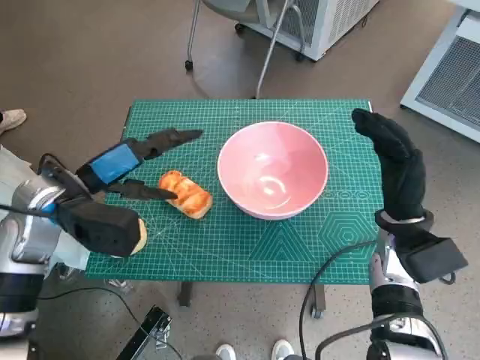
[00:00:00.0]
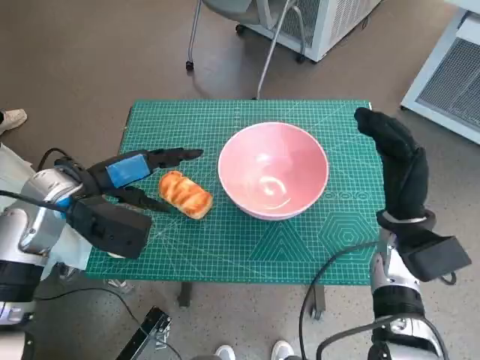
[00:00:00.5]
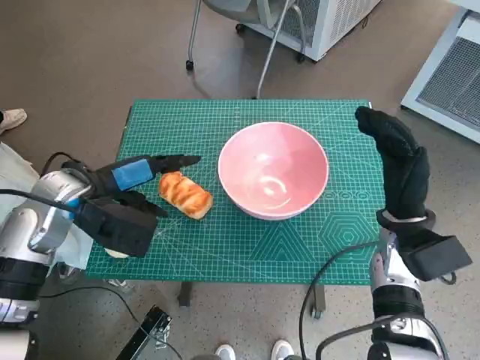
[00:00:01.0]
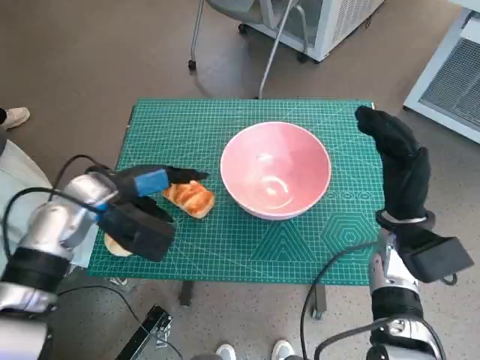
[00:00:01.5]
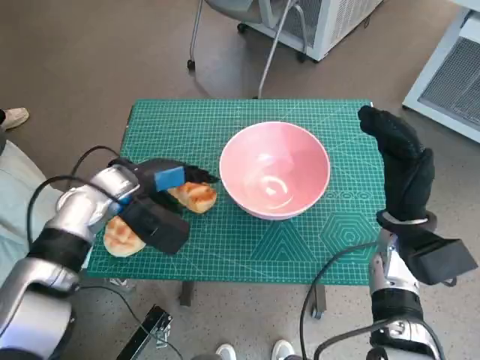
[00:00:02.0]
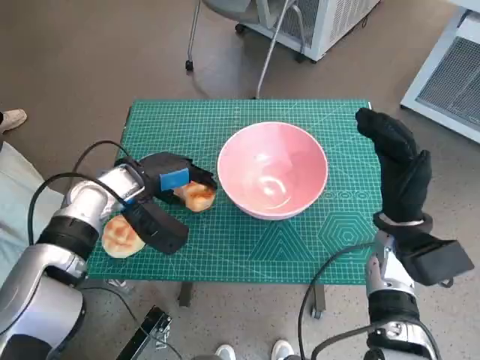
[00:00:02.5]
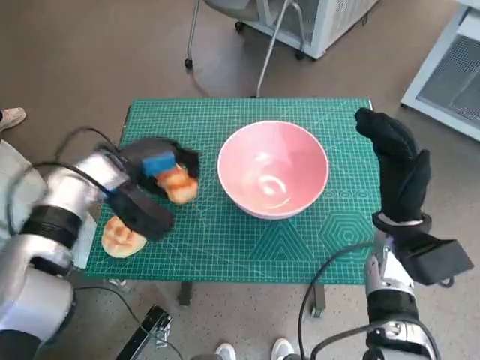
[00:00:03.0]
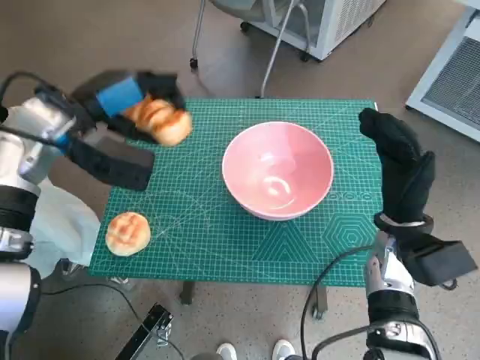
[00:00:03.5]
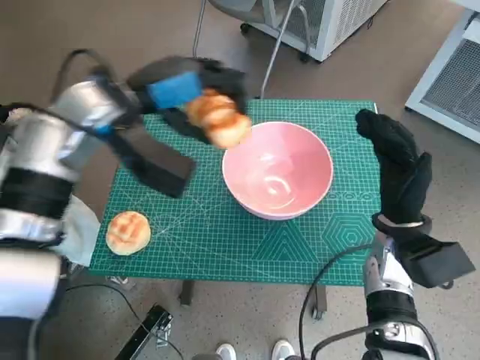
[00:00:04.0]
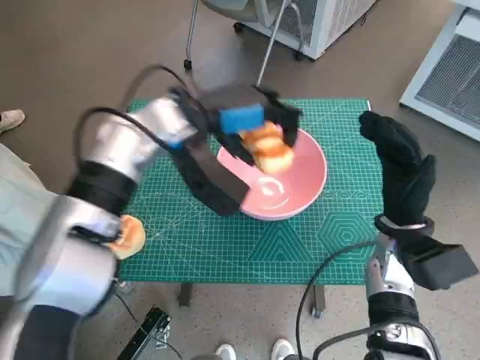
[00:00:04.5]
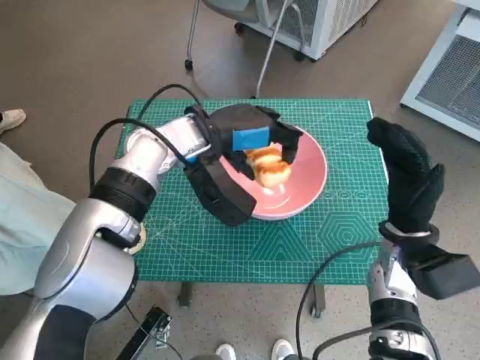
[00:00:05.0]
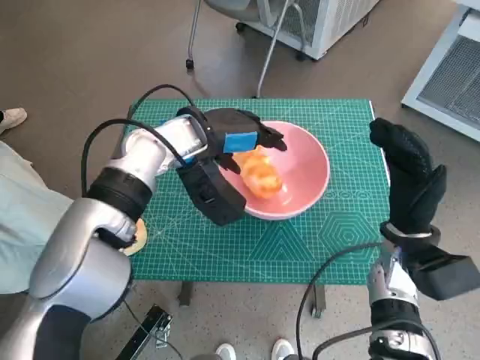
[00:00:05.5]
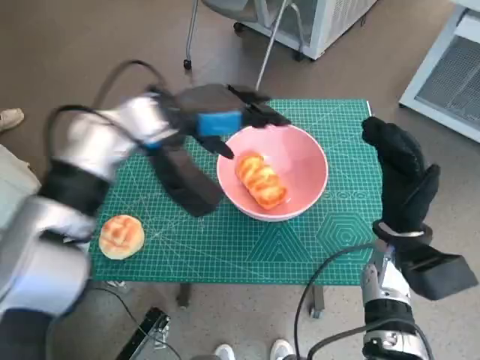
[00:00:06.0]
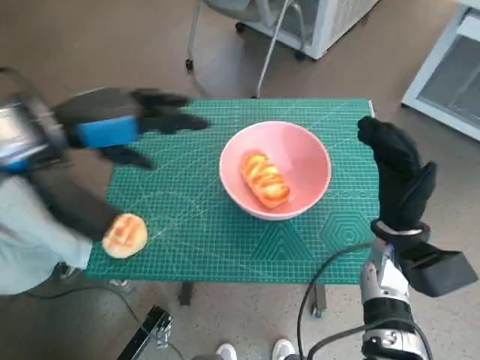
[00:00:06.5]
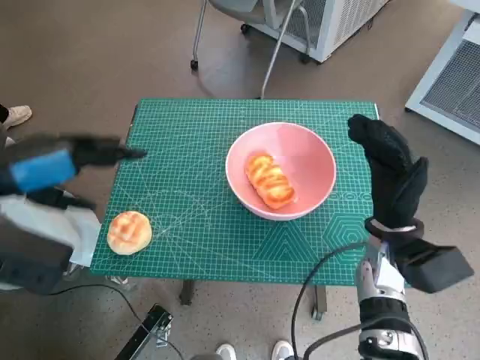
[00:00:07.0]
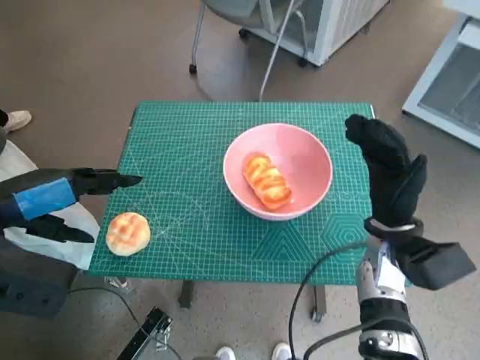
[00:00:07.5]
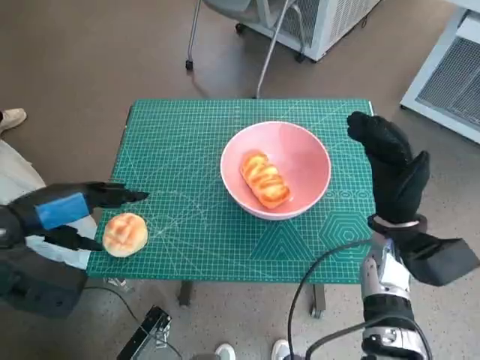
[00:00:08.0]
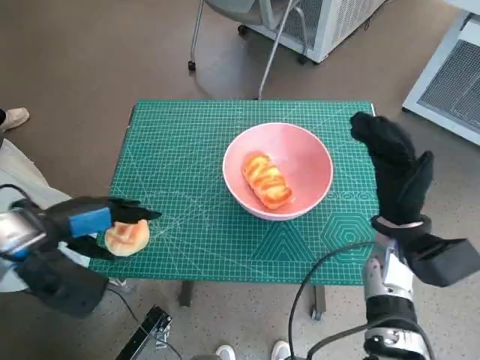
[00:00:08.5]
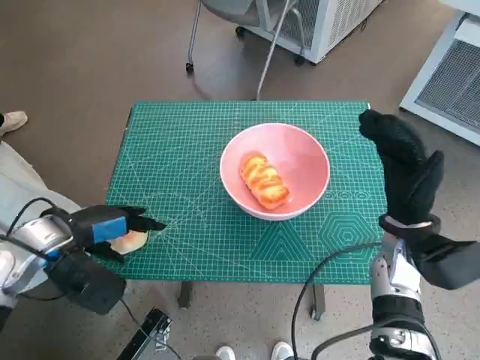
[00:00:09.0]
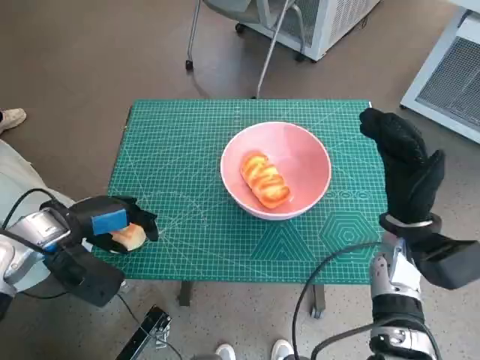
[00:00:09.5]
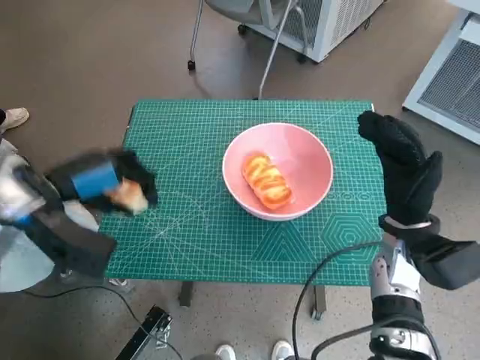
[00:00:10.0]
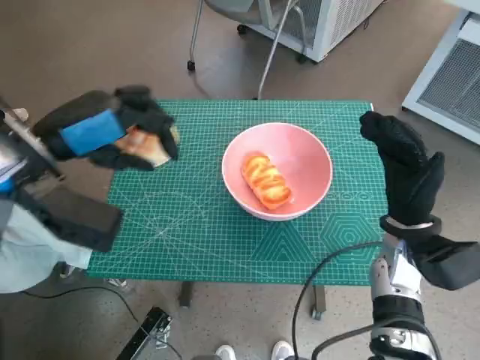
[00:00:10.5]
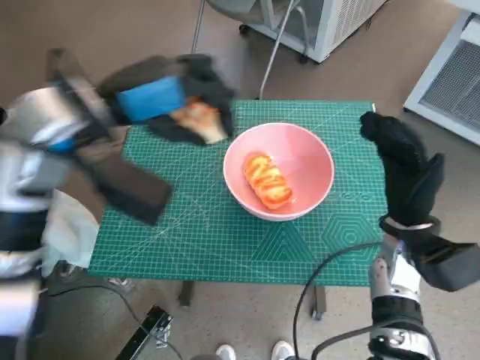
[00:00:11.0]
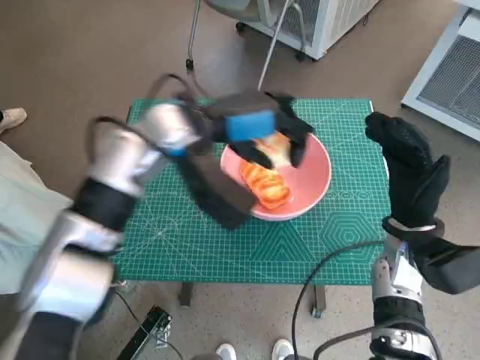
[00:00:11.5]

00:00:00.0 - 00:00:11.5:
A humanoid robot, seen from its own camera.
Task of the whole recording: Push the bowl to the center of the table and put the bread into the bowl.
Step, 00:00:00.0 - 00:00:02.0: Grasp the long bread with left hand.
Step, 00:00:02.5 - 00:00:06.0: Place the long bread in pink bowl with left hand.
Step, 00:00:06.5 - 00:00:09.0: Grasp the round bread with left hand.
00:00:00.0 - 00:00:02.0: The left hand ends up about 10 cm from where it was.
00:00:02.0 - 00:00:04.0: The left hand travels upward by roughly 10 cm.
00:00:04.0 - 00:00:06.0: The left hand shifts roughly 5 cm to the right.
00:00:06.0 - 00:00:07.5: The left hand is displaced to the left and backward by approximately 20 cm.
00:00:07.5 - 00:00:09.5: The left hand heads downward, covering about 15 cm.
00:00:09.5 - 00:00:11.5: The left hand is displaced to the right, upward and forward by approximately 20 cm.

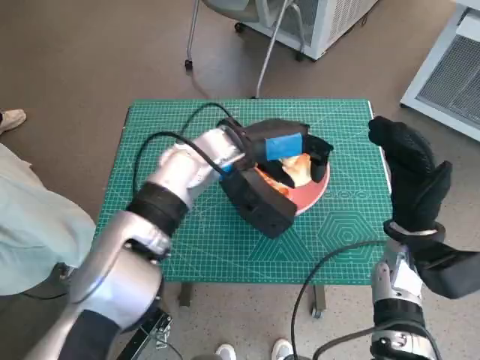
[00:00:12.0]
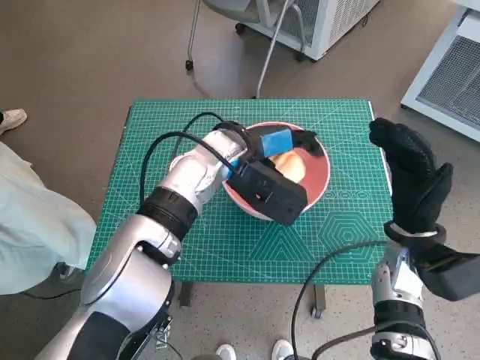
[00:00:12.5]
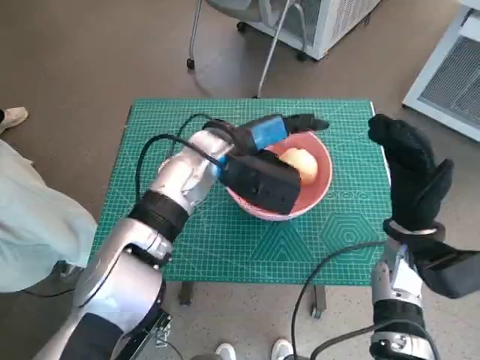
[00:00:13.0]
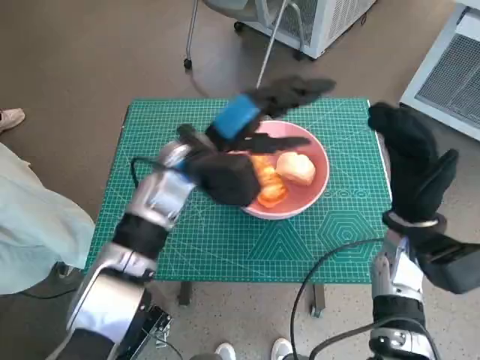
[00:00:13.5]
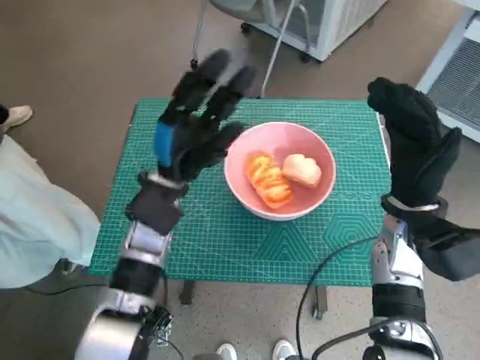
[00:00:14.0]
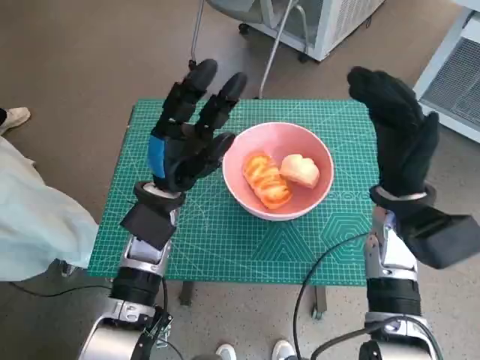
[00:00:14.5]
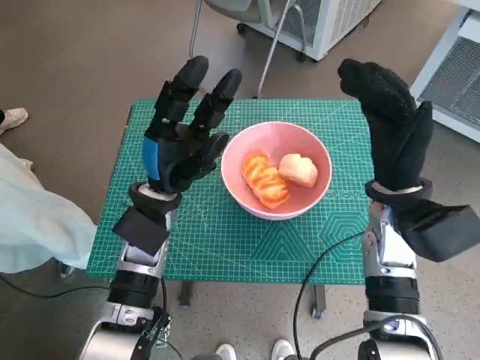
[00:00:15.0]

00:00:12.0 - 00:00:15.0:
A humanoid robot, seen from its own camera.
Task of the whole recording: Push the bowl to the center of the table and put the bread into the bowl.
00:00:13.5 - 00:00:15.0: The right hand ends up approximately 5 cm from where it was, while the left hand moves downward and to the left, about 5 cm.
